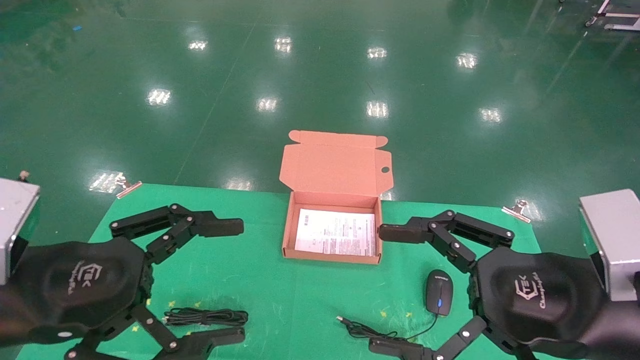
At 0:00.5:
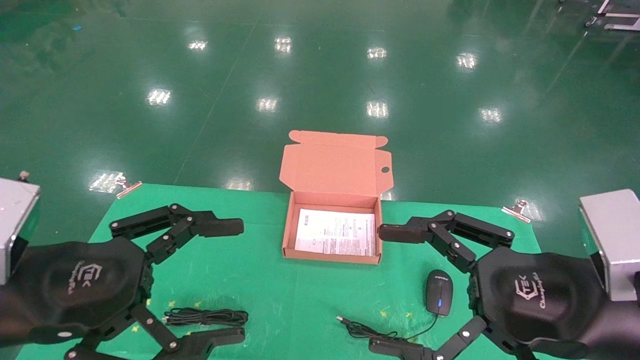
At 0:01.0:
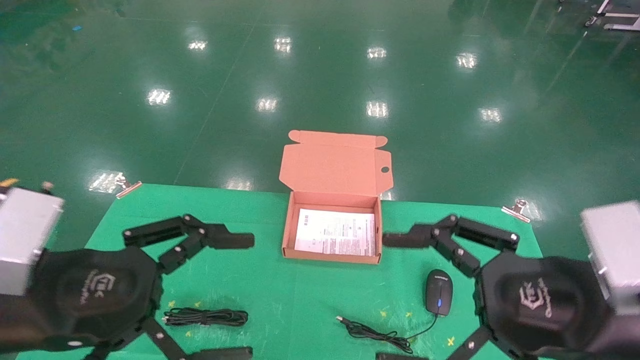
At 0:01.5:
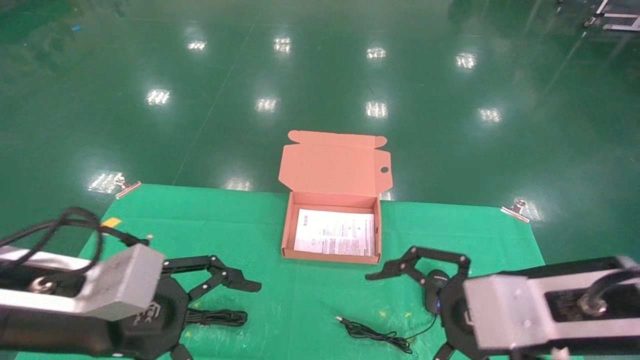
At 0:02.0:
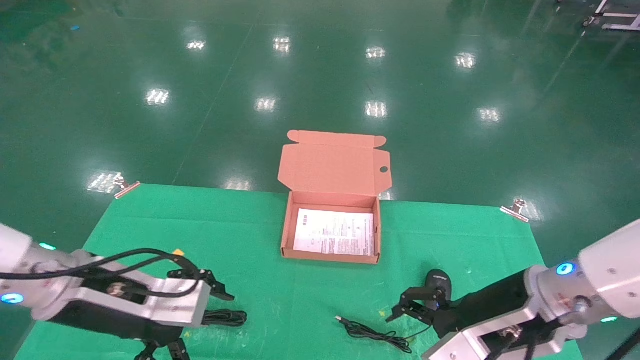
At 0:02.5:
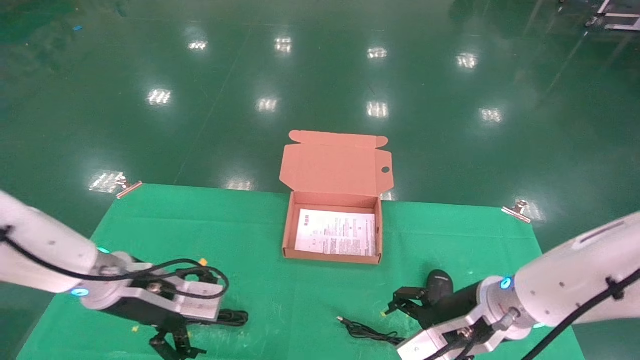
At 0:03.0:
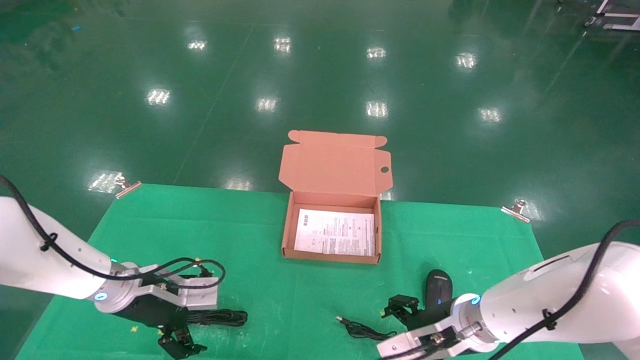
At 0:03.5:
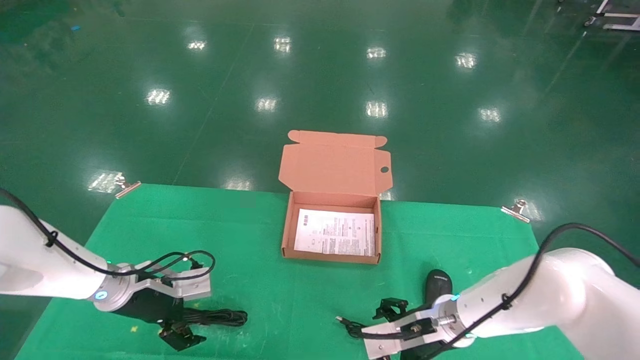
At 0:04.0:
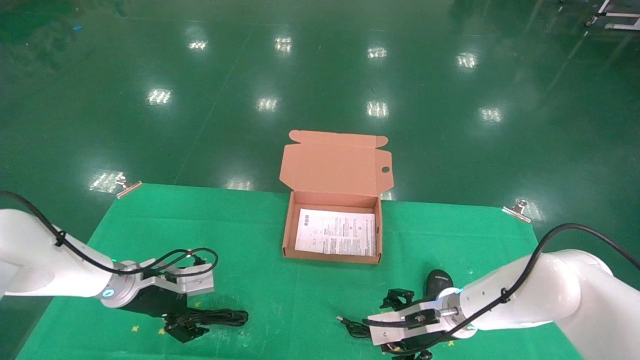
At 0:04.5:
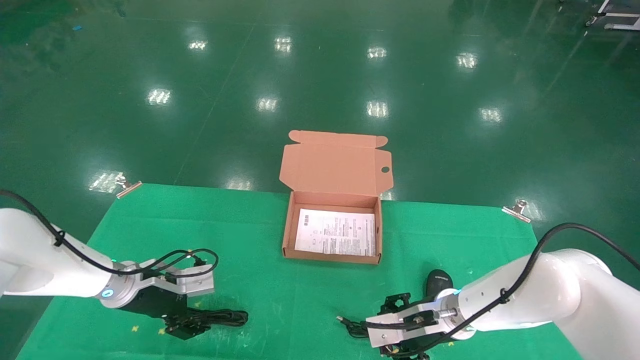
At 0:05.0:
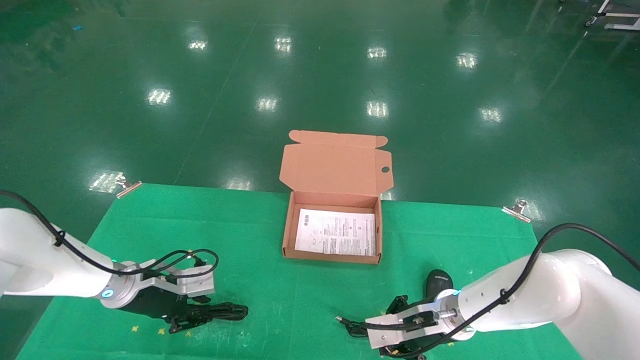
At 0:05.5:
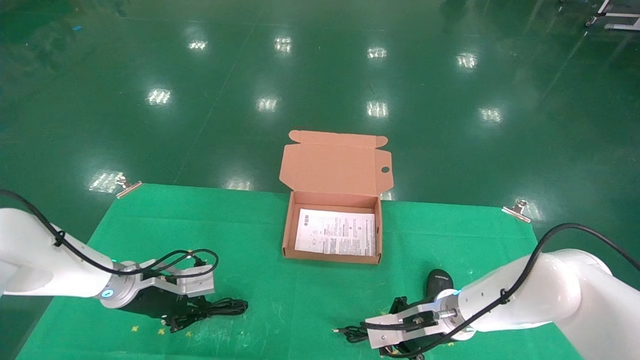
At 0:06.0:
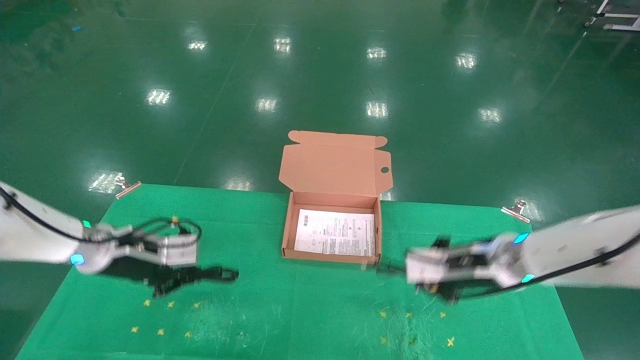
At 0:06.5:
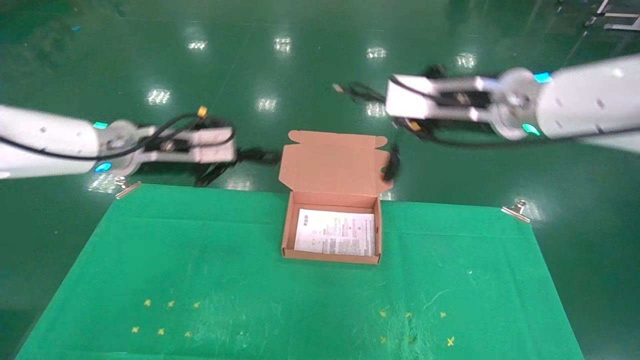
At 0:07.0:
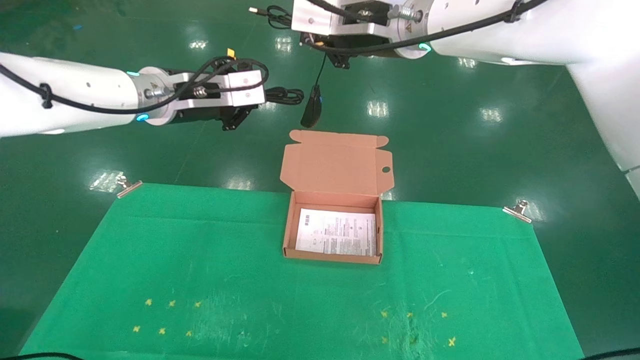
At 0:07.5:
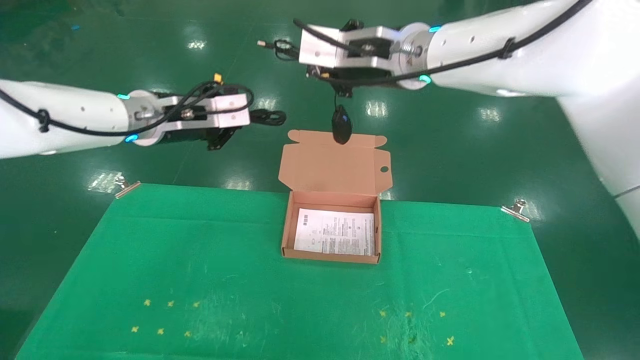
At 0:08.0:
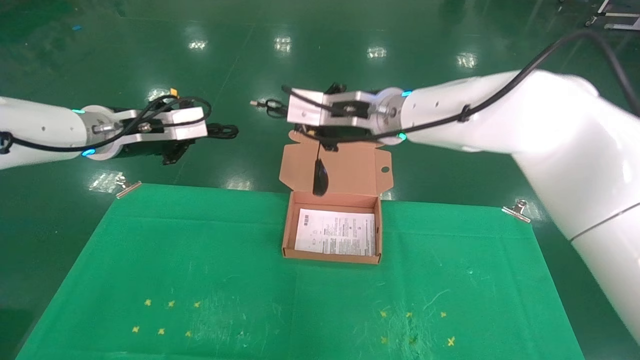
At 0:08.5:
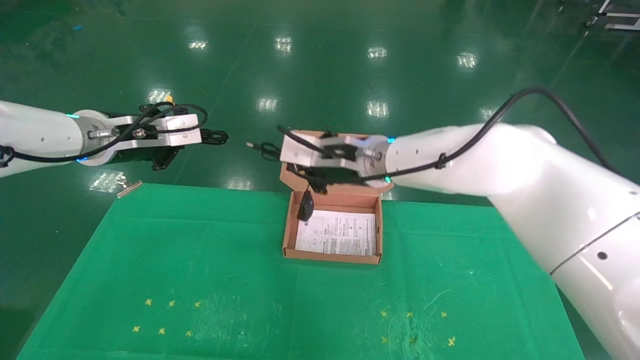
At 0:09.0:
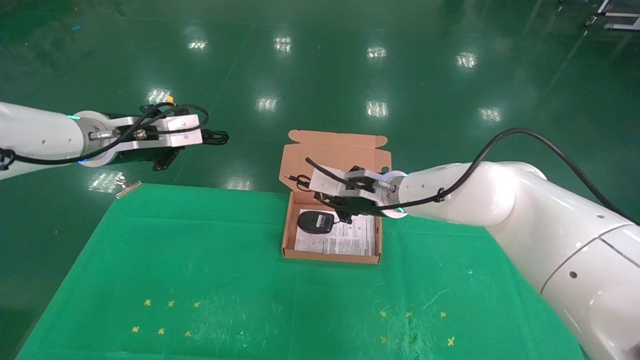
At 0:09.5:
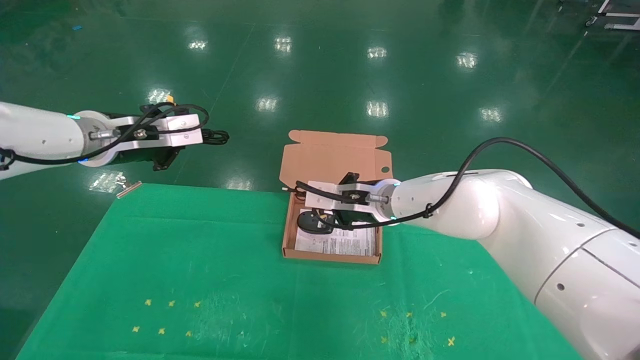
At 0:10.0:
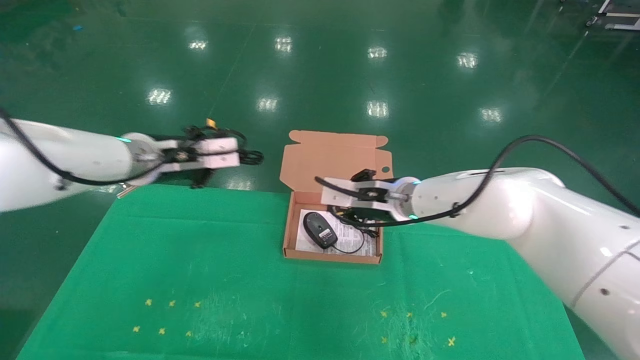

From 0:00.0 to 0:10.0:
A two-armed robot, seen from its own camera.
Task of the whole recording: grasp data cable left put into box grasp mouse right put into box.
Step, from 0:01.5 to 0:05.5: Grab and pick up both the mouse and power cord from the accessory packaging area at the same time.
From 0:00.0 to 0:02.0: The grippers both shift forward and downward by some 10 cm.
From 0:02.0 to 0:04.0: Both grippers travel together forward and downward, some 20 cm.
From 0:04.0 to 0:06.0: The grippers both shift upward by approximately 10 cm. The right gripper closes its fingers. Meanwhile the left gripper closes.
From 0:06.0 to 0:08.0: The right gripper shifts about 25 cm upward and to the left. The left gripper shifts approximately 15 cm upward.
From 0:08.0 to 0:10.0: The right gripper goes approximately 15 cm downward and to the right. Meanwhile the left gripper goes approximately 5 cm to the right.

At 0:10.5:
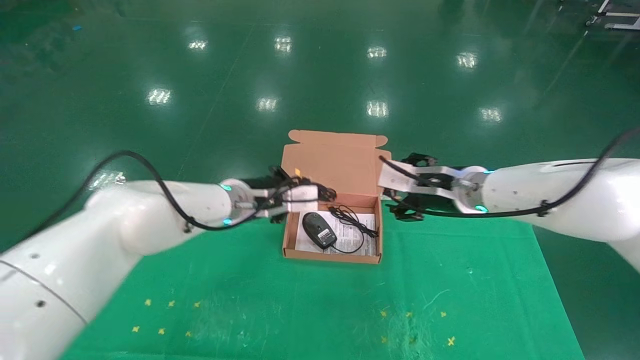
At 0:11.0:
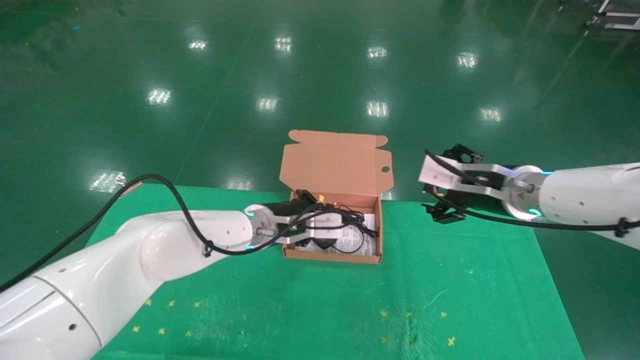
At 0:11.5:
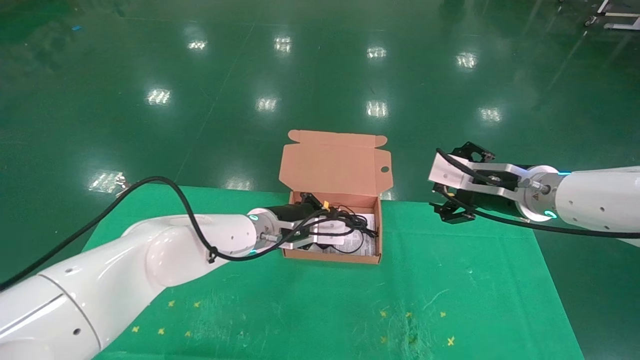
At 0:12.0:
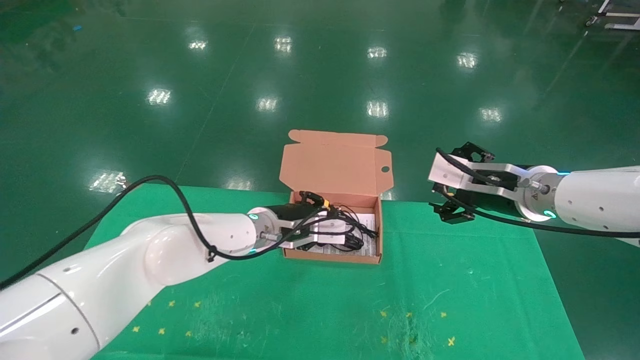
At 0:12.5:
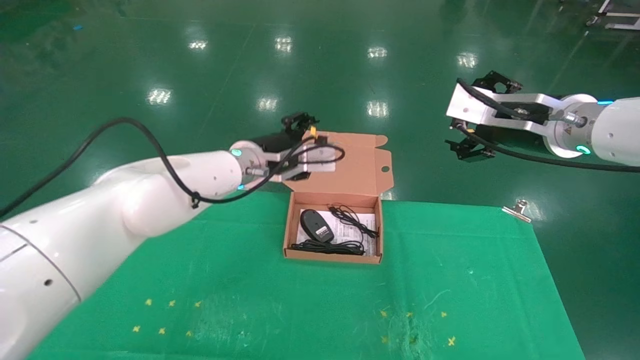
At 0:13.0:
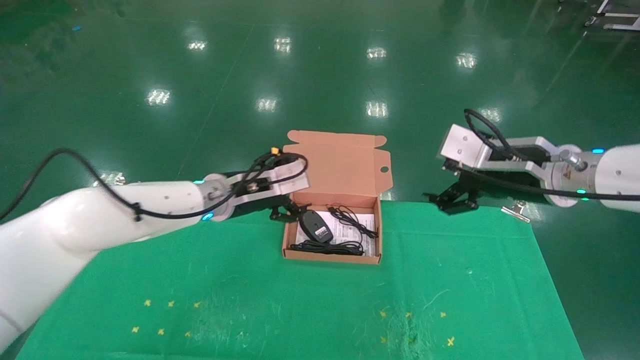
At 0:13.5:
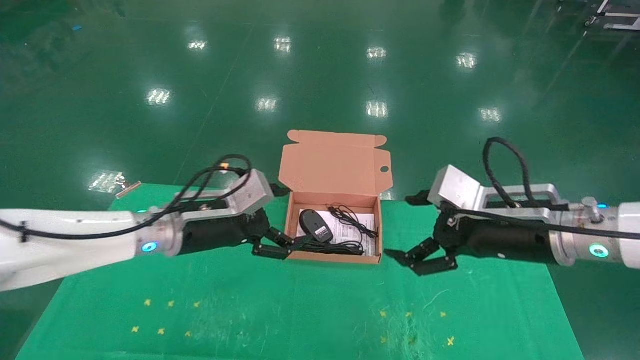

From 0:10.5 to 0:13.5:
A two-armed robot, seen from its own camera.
Task of the whole recording: grasp data cable left put into box grasp mouse right put into box.
From 0:10.5 to 0:12.0: The left gripper ends up roughly 5 cm from where it was; the right gripper travels to the right by approximately 5 cm, and opens its fingers.
From 0:12.0 to 0:13.5: The right gripper travels backward by roughly 5 cm, and reaches some 5 cm upward, then returns; the left gripper shifts roughly 10 cm to the left and backward, and opens its fingers.
